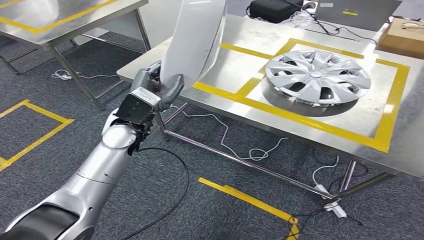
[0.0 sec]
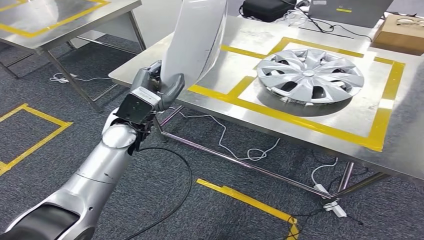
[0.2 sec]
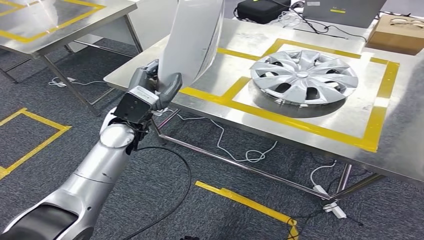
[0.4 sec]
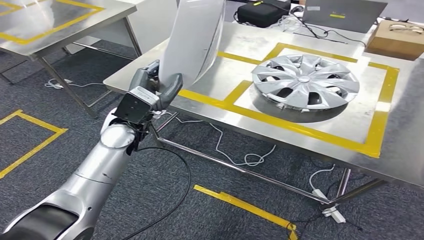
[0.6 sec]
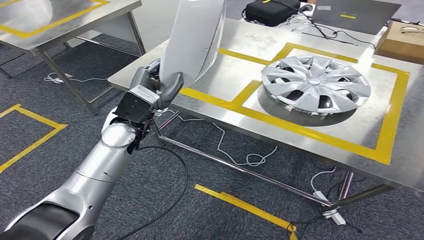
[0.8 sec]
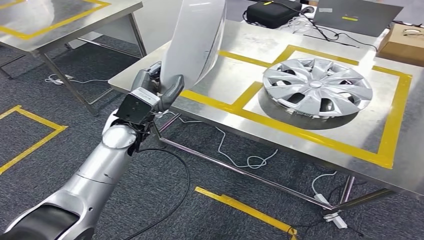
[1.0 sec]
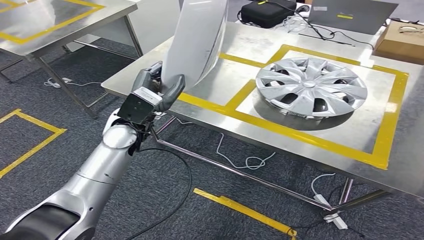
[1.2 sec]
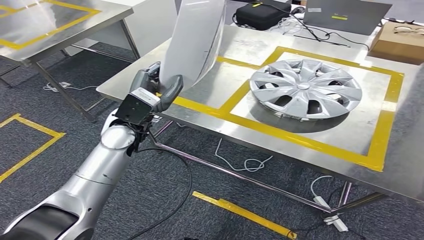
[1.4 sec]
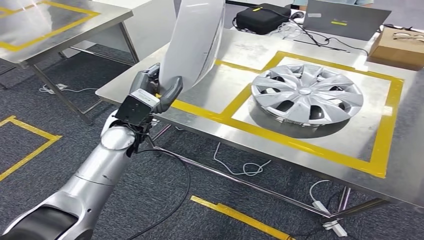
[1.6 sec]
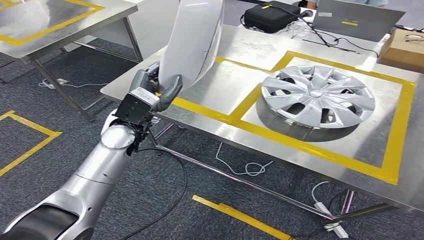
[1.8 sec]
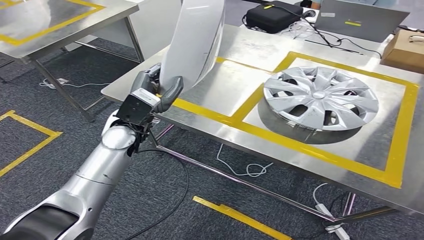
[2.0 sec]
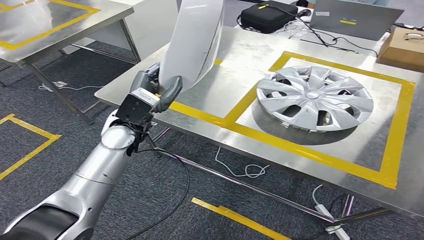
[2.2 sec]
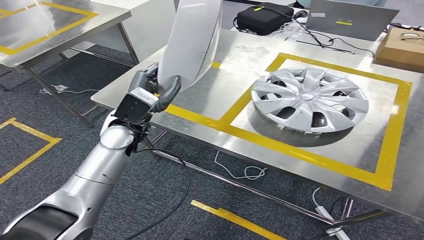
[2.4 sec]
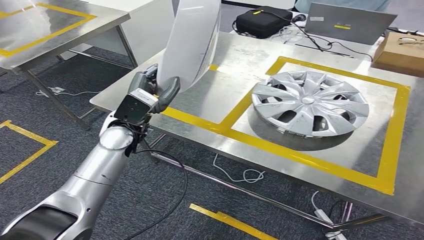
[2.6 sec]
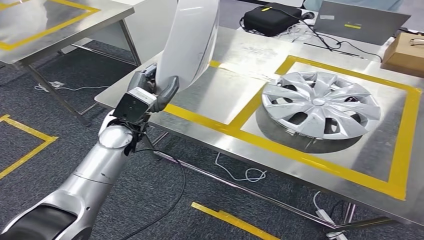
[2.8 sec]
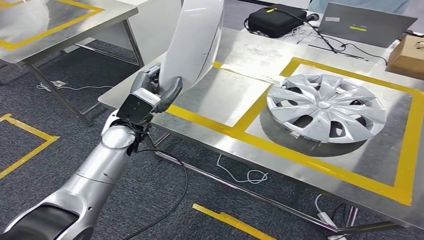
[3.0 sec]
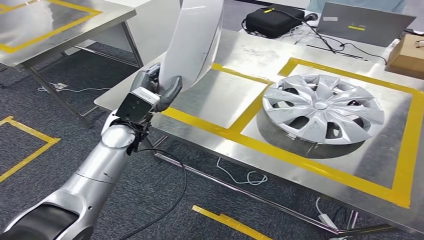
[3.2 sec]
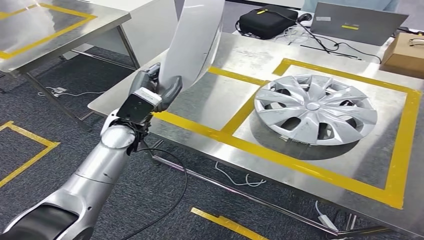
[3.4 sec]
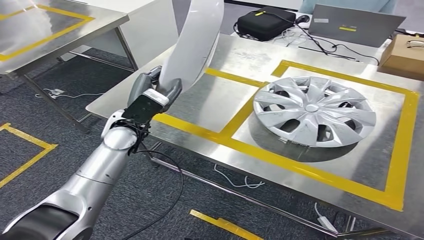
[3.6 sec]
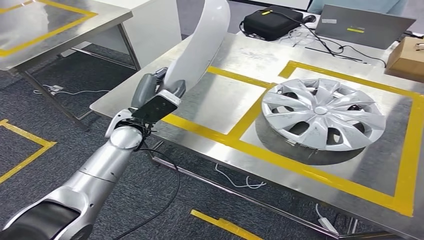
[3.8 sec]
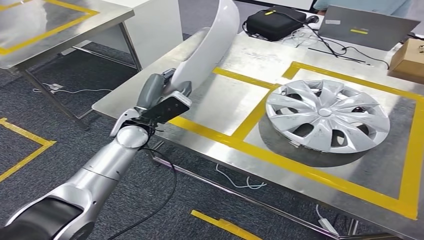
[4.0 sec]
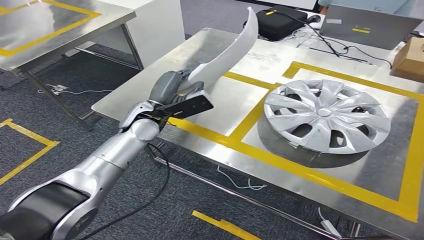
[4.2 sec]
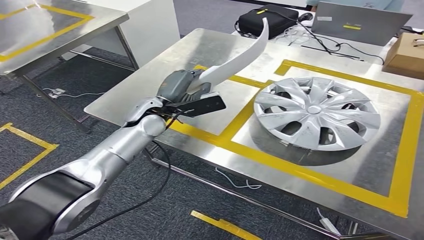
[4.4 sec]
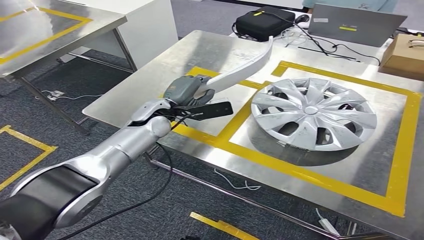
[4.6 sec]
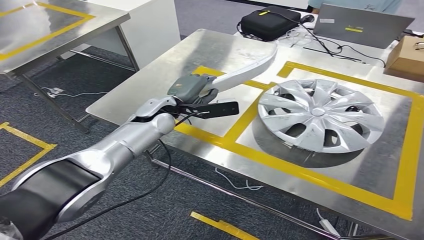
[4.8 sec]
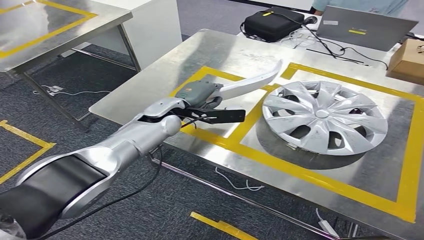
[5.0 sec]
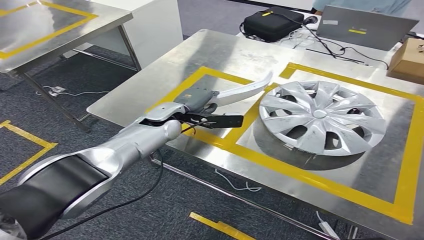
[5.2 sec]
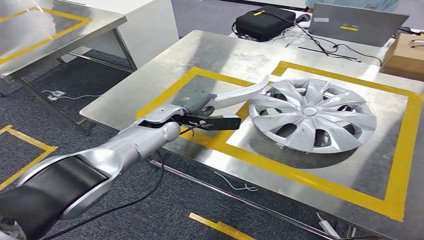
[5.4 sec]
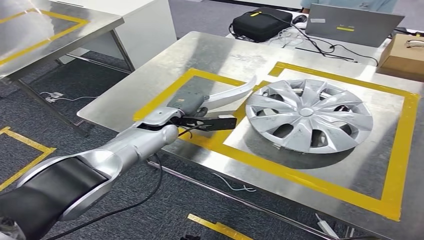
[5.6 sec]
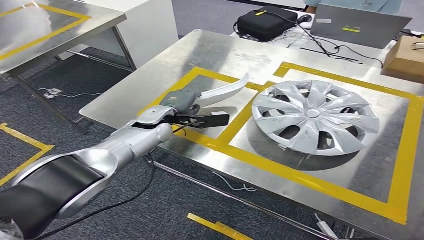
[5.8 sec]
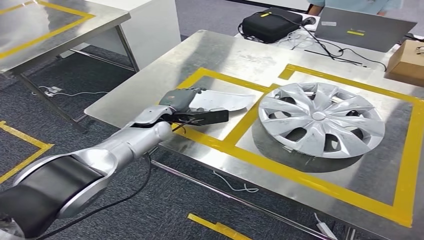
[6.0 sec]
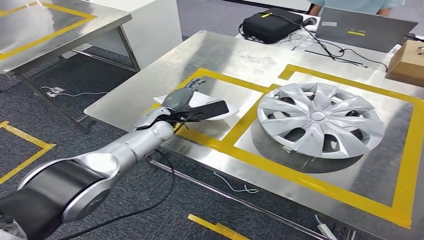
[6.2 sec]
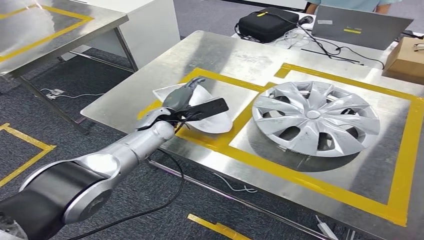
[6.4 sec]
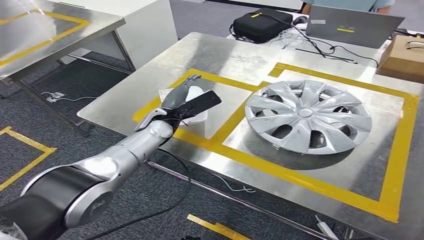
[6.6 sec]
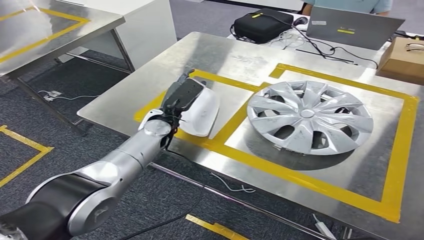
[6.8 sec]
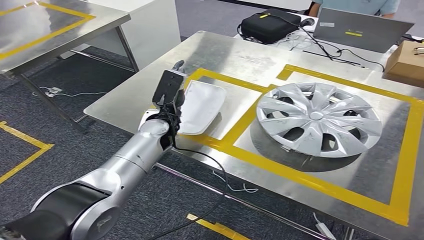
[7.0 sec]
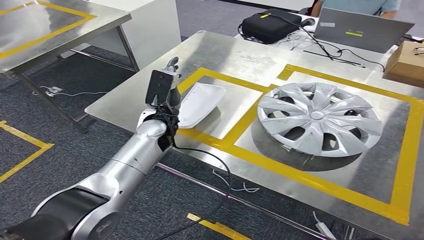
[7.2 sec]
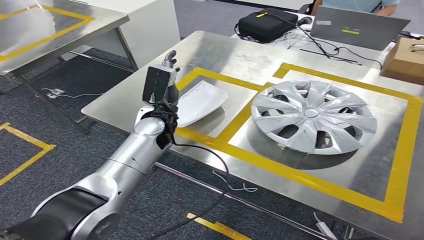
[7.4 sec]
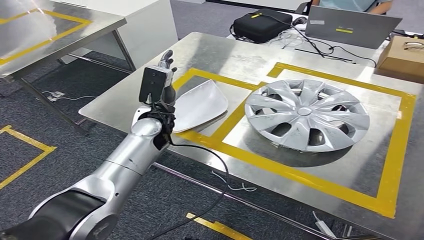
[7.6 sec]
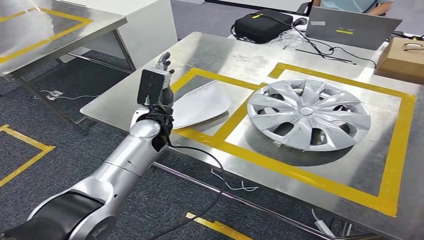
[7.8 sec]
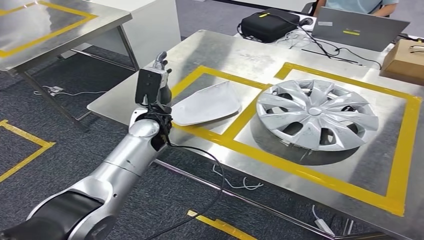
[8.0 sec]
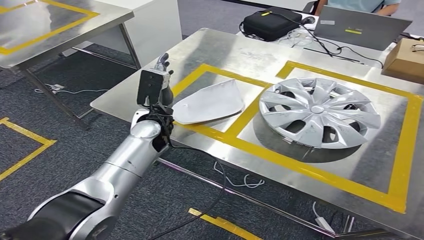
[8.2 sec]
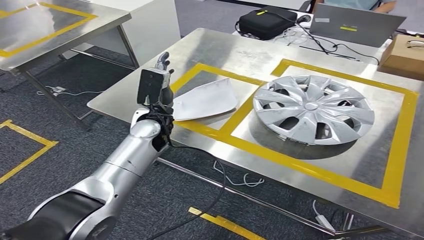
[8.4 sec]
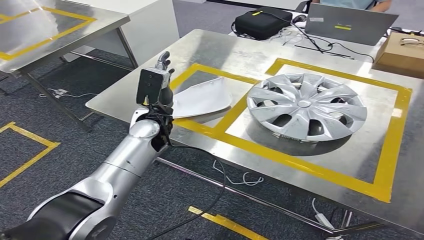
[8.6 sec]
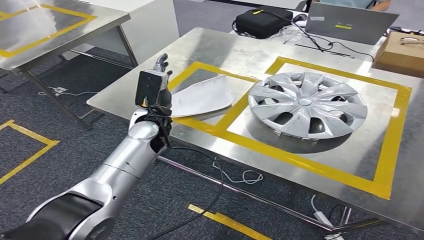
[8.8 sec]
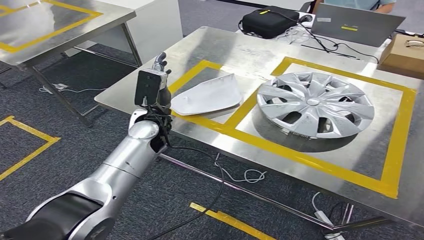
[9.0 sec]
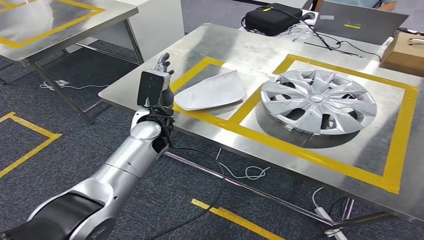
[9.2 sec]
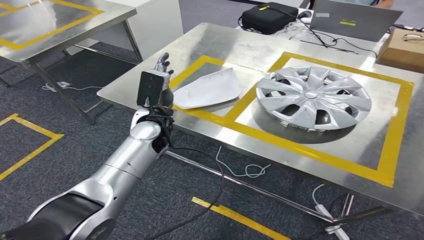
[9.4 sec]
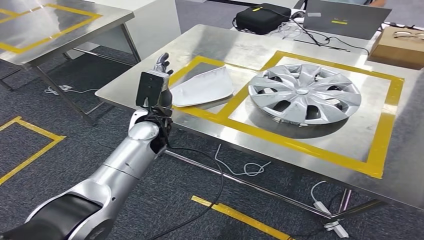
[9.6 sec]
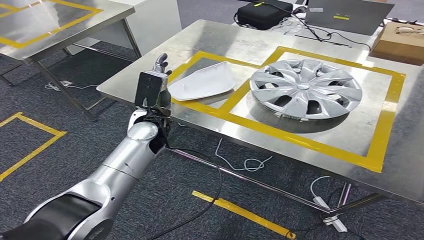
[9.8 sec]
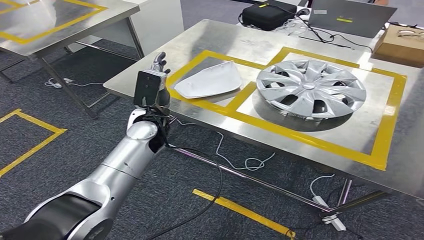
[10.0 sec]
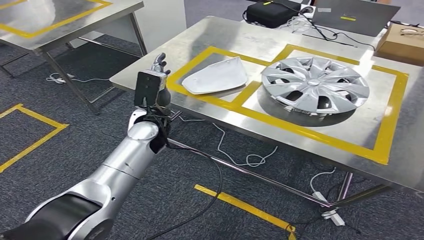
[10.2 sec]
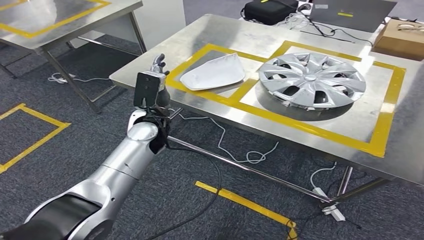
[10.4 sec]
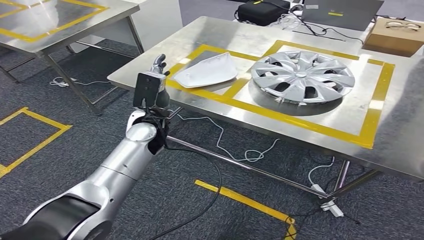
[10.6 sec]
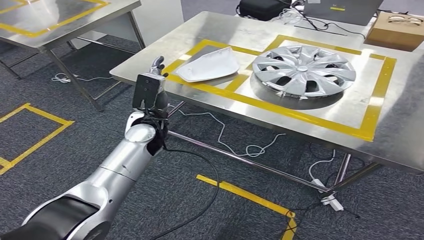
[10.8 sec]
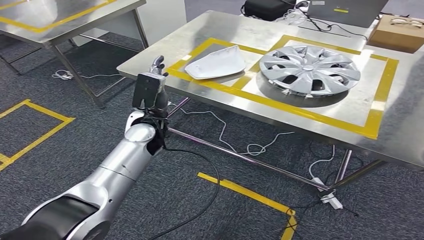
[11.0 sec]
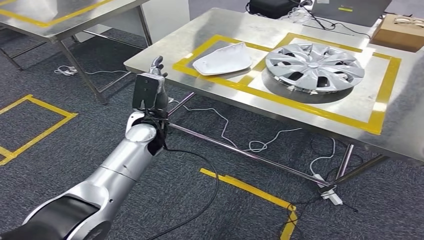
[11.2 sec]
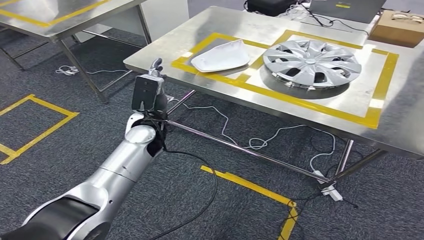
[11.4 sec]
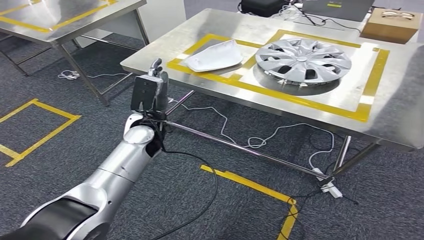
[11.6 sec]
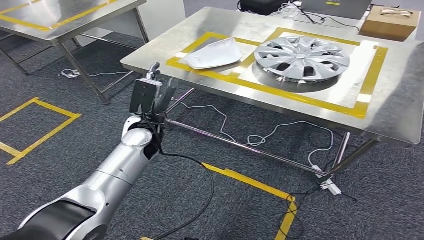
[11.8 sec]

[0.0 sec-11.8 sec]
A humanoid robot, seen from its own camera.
Step, 2.2 sec to 10.8 sec: Insert the small parts into the corresponding slots on the workbench.
Step, 11.0 sec to 11.8 sec: Return to the initial position at the workbench.
